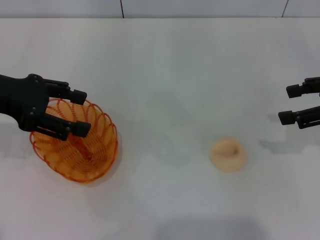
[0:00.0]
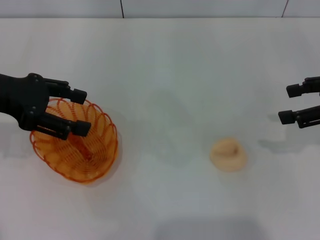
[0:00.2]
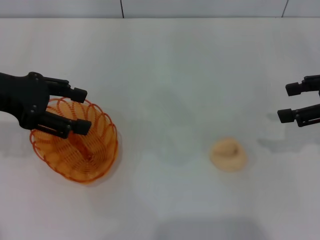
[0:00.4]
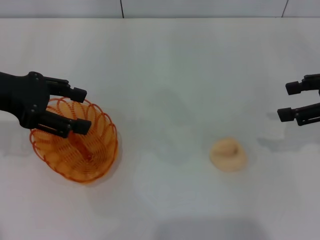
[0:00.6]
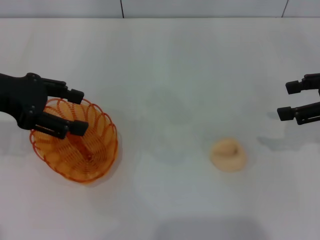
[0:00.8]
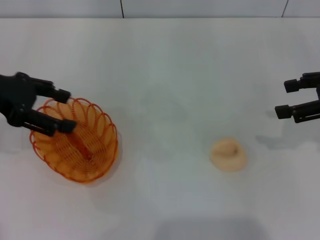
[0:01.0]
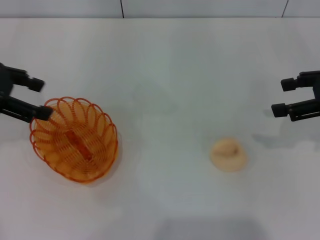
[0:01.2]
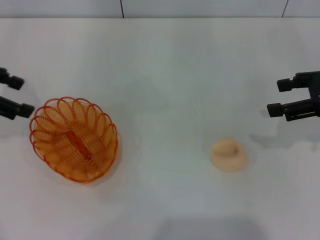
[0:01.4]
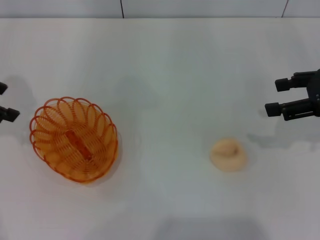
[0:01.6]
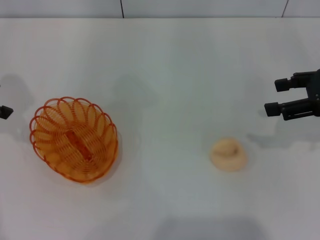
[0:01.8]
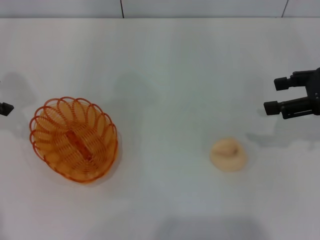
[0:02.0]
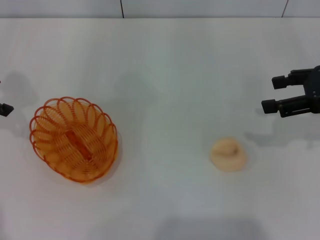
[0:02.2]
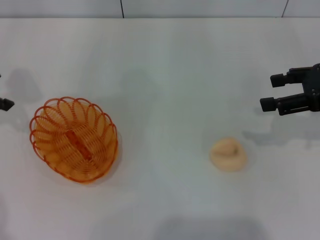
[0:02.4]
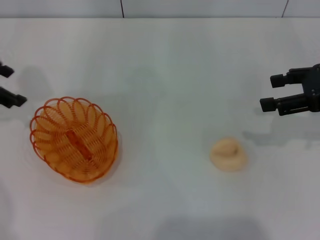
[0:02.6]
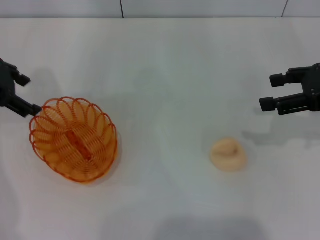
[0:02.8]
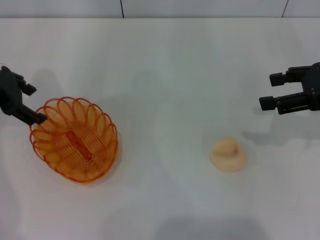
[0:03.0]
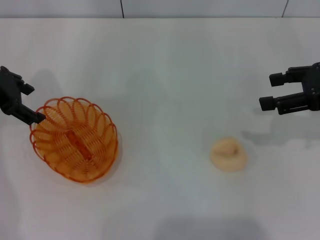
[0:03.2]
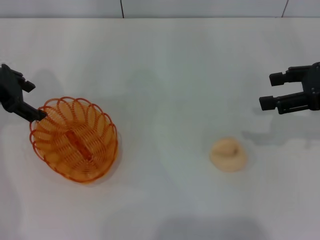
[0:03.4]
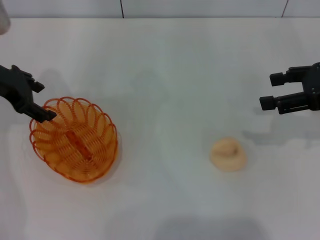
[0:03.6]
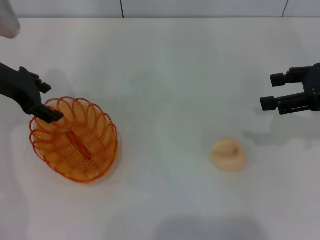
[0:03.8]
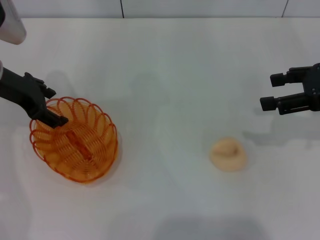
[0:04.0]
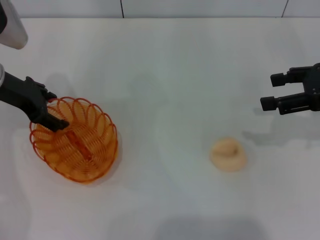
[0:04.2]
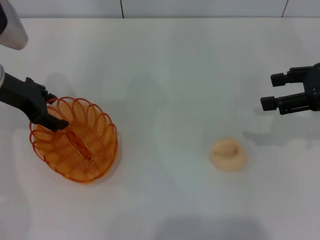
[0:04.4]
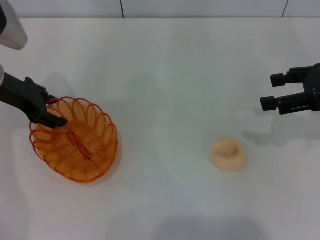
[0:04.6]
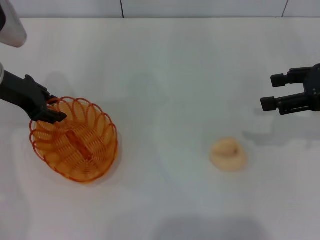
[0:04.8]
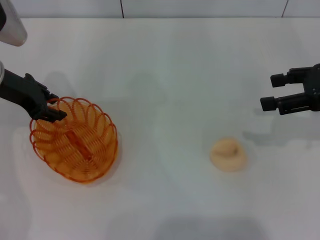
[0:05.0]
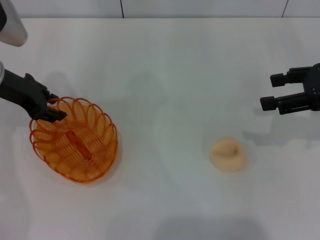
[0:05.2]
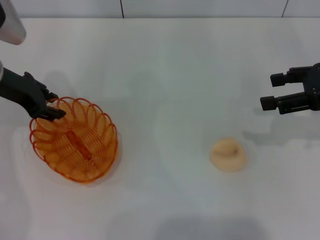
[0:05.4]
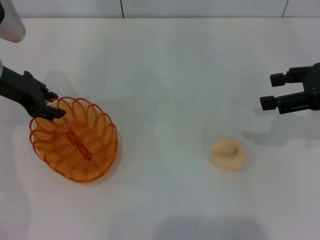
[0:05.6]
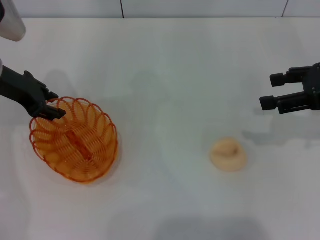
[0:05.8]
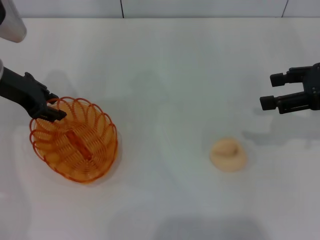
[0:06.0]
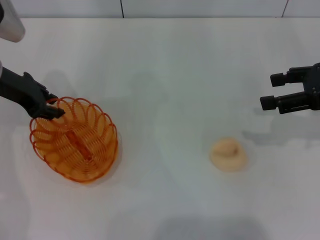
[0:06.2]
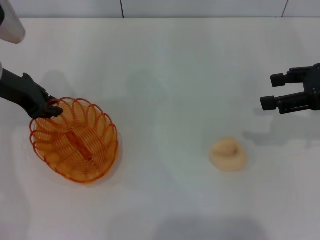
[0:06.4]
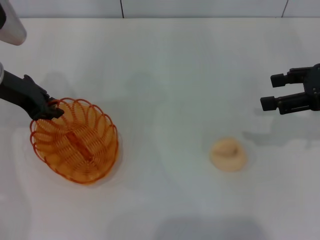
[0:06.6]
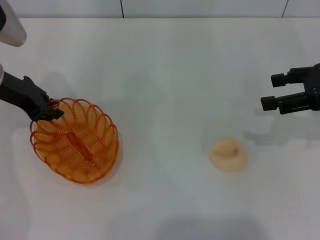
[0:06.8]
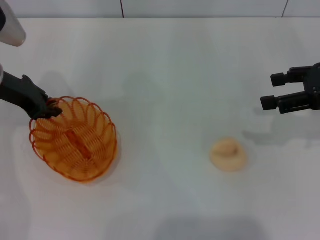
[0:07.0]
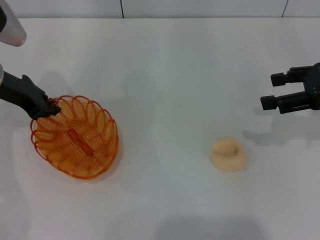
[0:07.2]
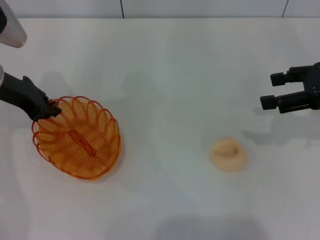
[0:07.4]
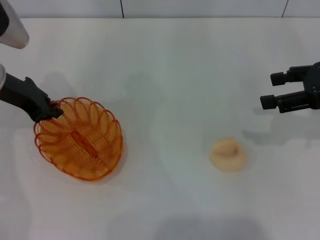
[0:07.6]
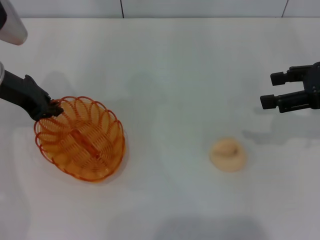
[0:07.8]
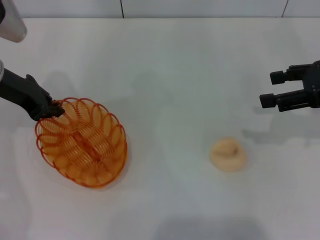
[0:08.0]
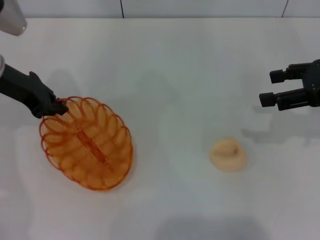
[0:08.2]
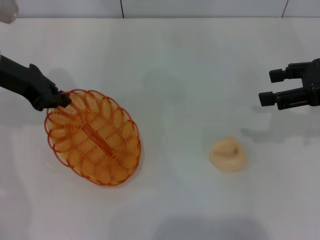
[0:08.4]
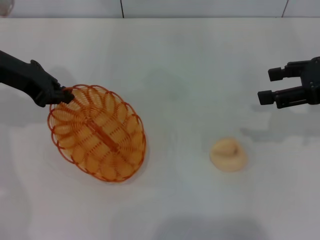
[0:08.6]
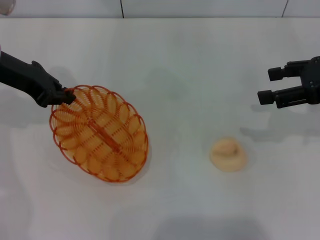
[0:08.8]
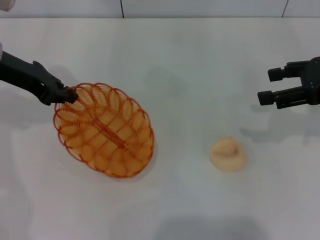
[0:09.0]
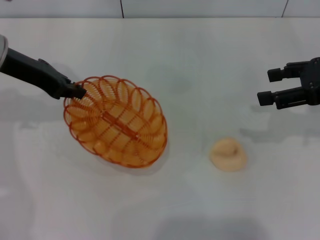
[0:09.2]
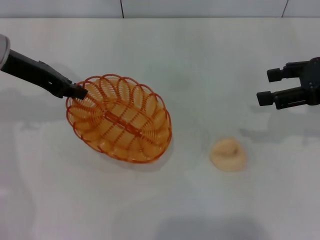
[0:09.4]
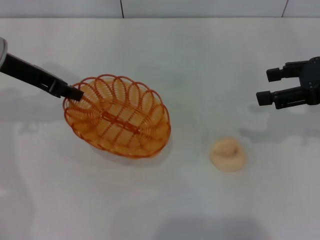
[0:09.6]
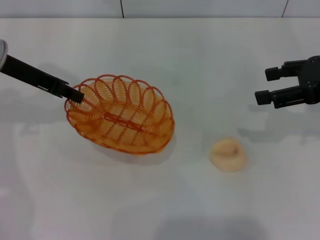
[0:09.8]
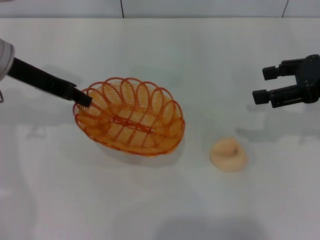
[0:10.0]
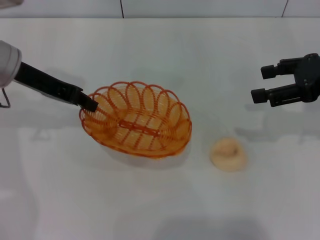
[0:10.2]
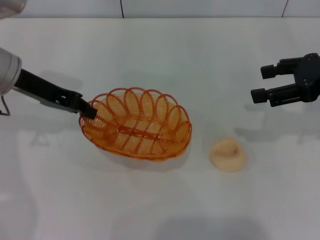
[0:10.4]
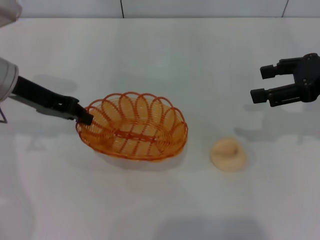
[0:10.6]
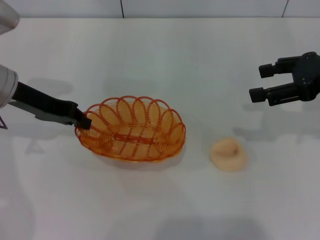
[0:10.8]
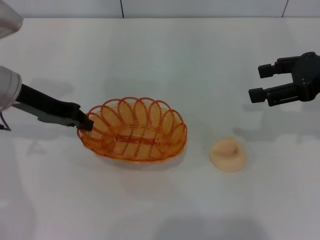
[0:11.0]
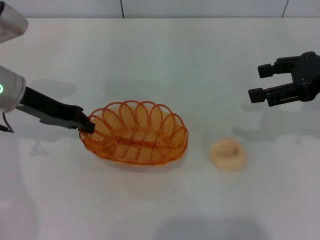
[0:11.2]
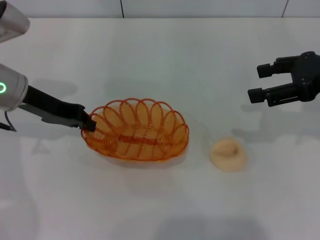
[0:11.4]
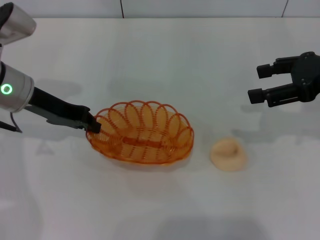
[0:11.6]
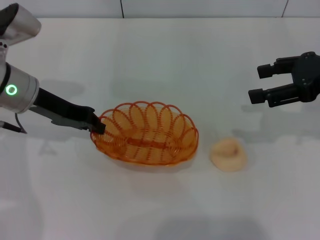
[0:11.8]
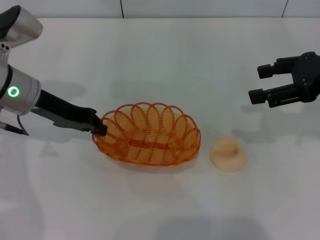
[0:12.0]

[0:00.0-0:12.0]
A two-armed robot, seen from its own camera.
Step, 0:00.0 to 0:08.8: Pick up the basket with the left gripper.
0:00.0 to 0:01.6: The left gripper shifts roughly 5 cm to the left.
0:01.6 to 0:03.0: The left gripper shifts by approximately 5 cm.
0:03.0 to 0:04.4: There are only small adjustments of the grippers.
0:04.4 to 0:06.0: The left gripper closes up.
0:06.0 to 0:07.6: The left gripper closes up.
0:07.6 to 0:09.0: The grippers make only small movements.
0:10.4 to 0:12.0: The grippers stay close to where they were, moving slightly.

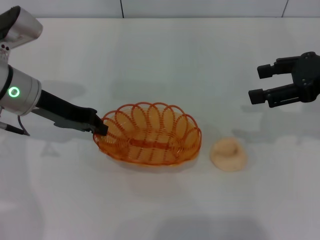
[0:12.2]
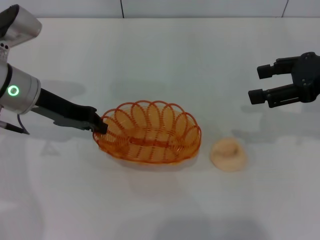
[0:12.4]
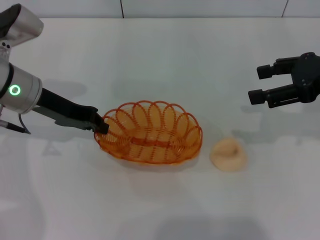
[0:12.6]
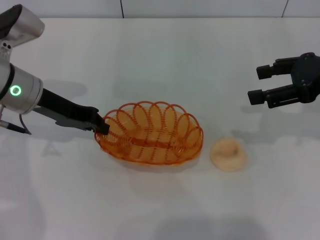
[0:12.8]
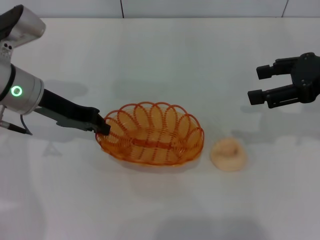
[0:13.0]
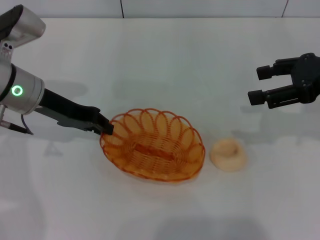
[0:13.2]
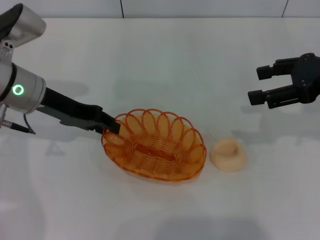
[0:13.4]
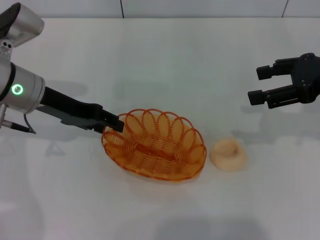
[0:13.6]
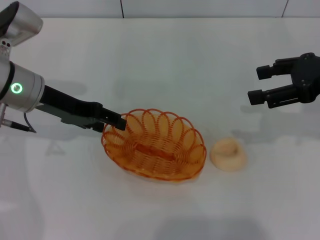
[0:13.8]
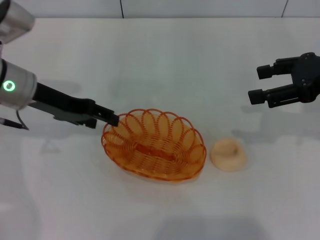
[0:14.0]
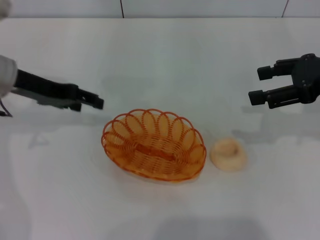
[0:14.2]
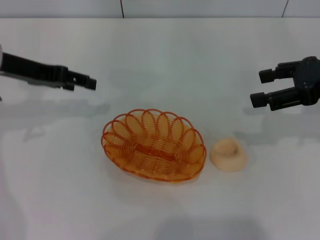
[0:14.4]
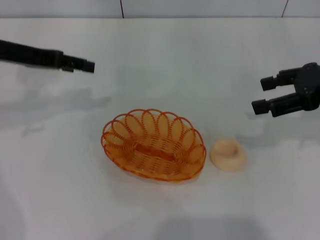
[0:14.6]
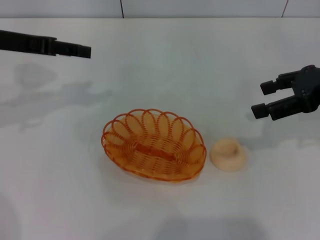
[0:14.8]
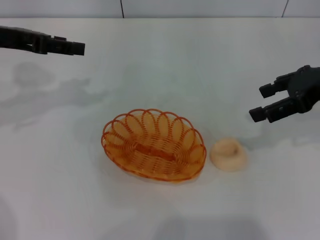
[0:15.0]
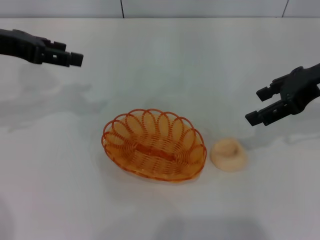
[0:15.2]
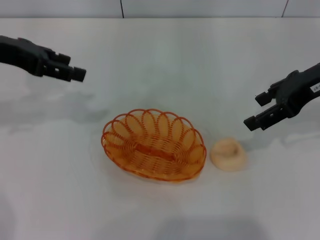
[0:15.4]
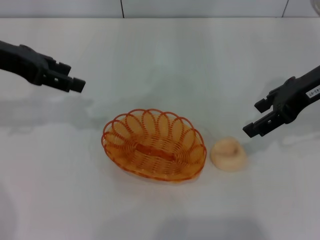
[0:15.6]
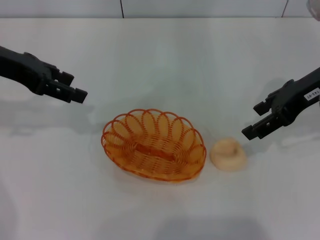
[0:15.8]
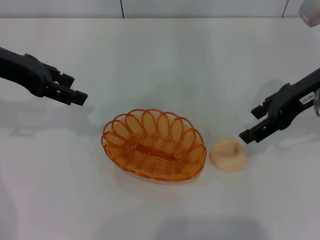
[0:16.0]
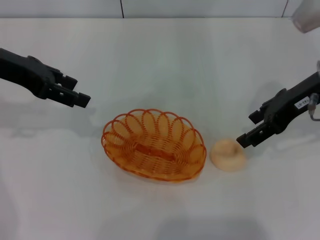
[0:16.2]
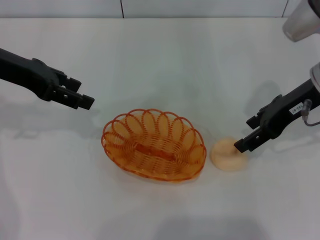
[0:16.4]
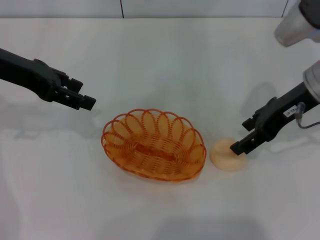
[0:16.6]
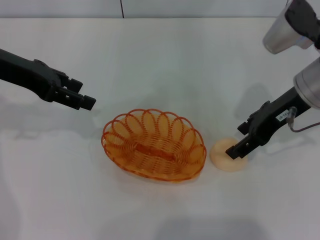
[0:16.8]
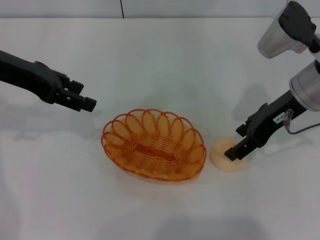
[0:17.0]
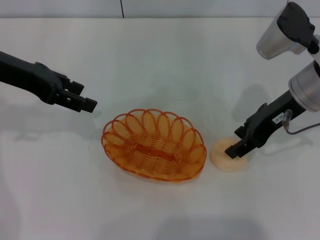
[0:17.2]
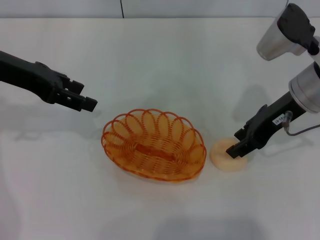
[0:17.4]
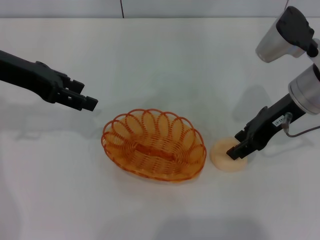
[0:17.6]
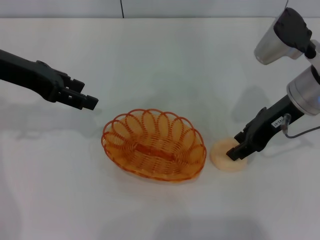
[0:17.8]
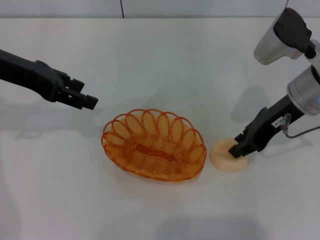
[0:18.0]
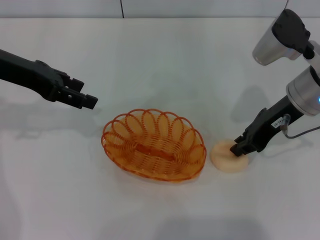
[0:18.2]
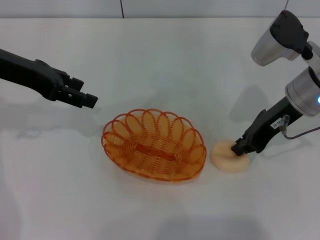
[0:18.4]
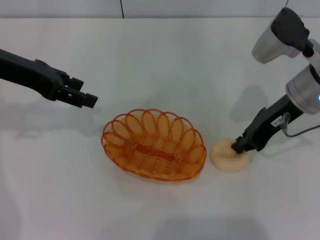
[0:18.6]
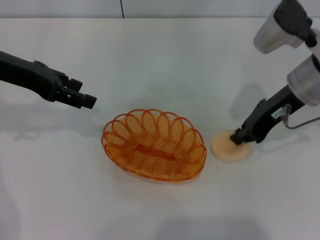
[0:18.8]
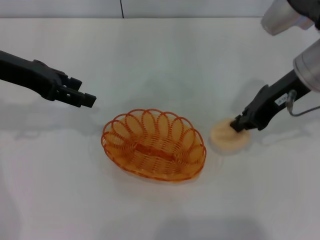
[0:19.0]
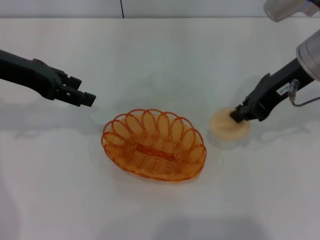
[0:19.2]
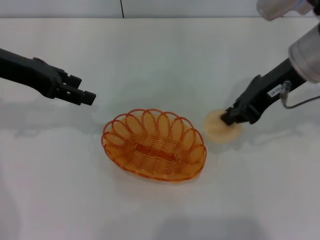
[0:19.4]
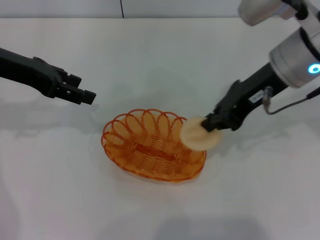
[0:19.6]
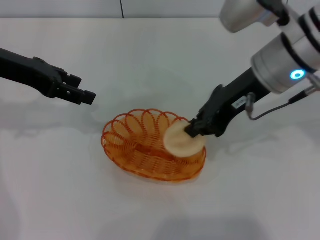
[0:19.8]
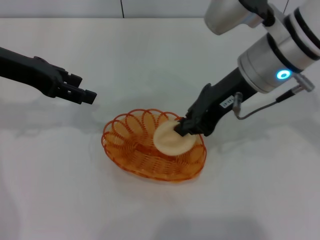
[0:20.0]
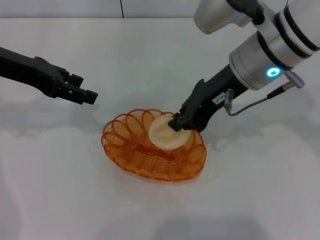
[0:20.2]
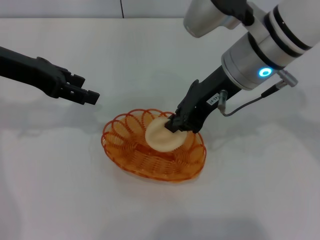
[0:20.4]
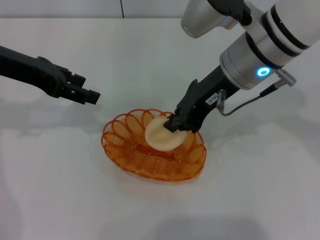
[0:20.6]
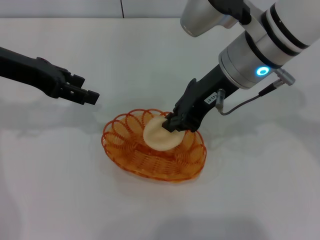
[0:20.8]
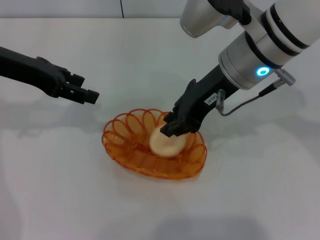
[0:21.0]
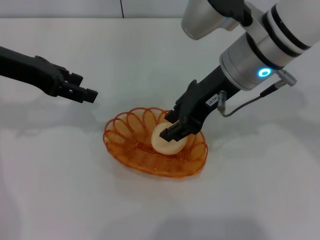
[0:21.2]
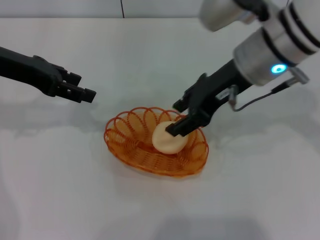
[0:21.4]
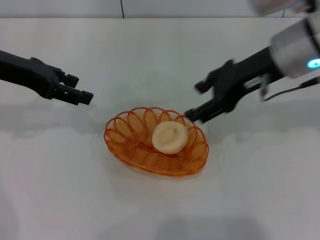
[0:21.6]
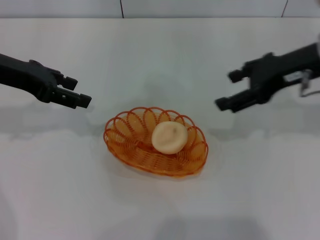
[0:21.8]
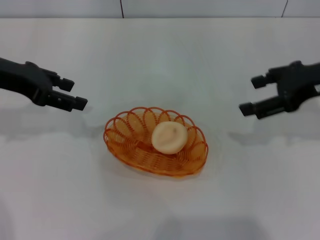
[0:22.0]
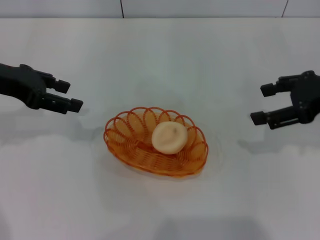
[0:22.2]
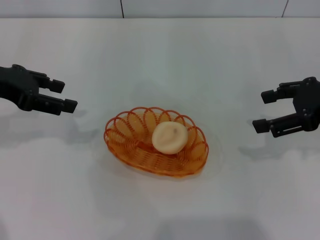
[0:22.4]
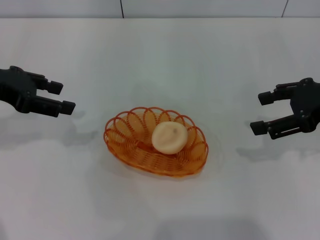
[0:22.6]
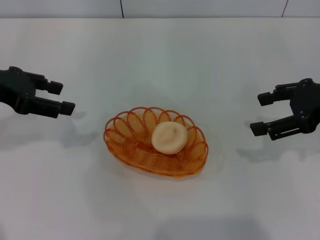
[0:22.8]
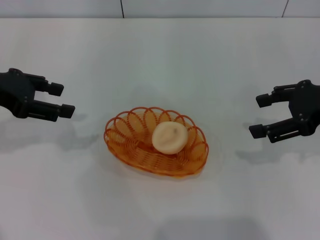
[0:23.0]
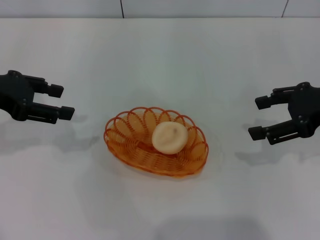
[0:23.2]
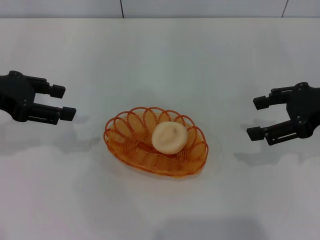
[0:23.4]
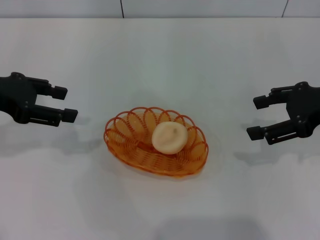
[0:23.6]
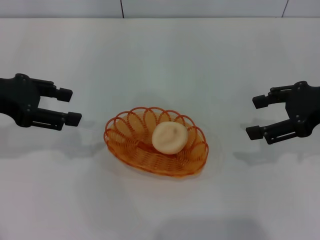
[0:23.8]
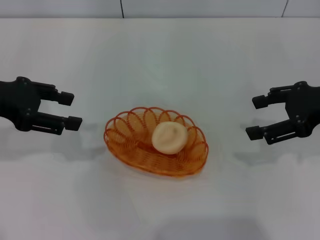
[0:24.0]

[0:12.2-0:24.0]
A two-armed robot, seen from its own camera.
Step, 0:14.2 to 0:19.0: Pick up the egg yolk pastry with the right gripper.
Step, 0:19.2 to 0:21.4: Place the egg yolk pastry into the basket with the right gripper.
0:12.2 to 0:13.6: The left gripper opens up.
0:13.6 to 0:15.2: The left gripper travels upward and to the left by about 10 cm, and opens.
0:15.2 to 0:16.6: The right gripper moves approximately 5 cm.
0:16.6 to 0:18.2: The right gripper closes up.
0:18.2 to 0:19.6: The right gripper shifts approximately 5 cm upward.
0:19.6 to 0:21.0: The right gripper shifts about 5 cm to the left.
0:21.0 to 0:22.6: The right gripper goes some 20 cm to the right, and opens.
0:22.6 to 0:24.0: The grippers make only small movements.
